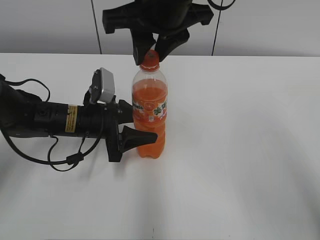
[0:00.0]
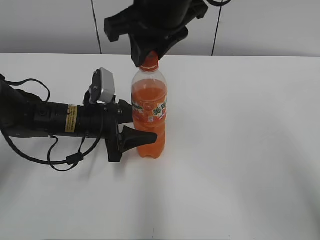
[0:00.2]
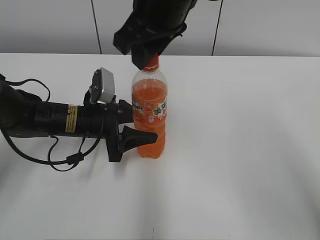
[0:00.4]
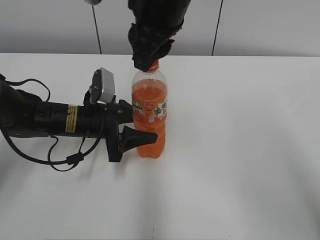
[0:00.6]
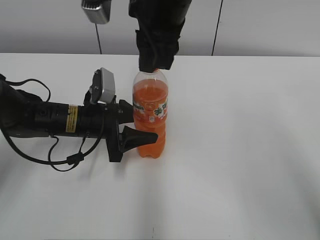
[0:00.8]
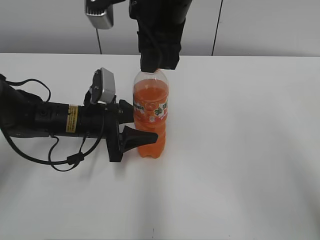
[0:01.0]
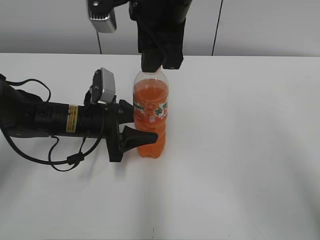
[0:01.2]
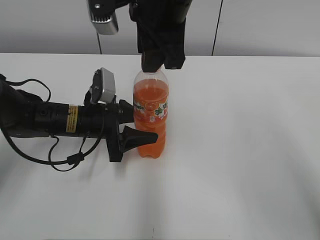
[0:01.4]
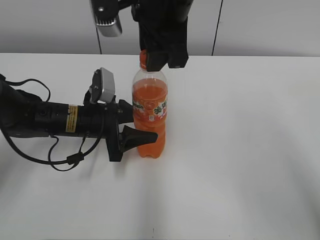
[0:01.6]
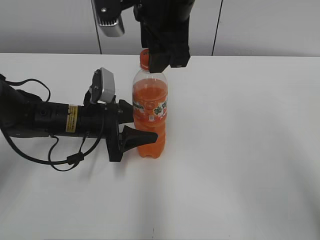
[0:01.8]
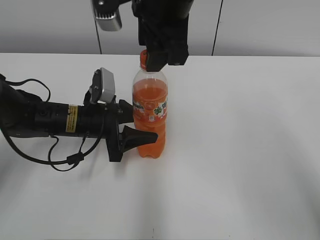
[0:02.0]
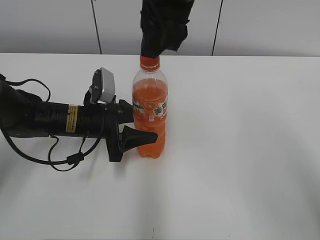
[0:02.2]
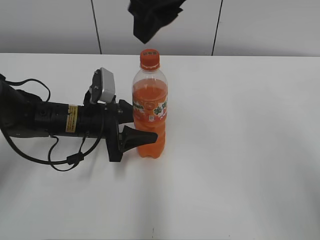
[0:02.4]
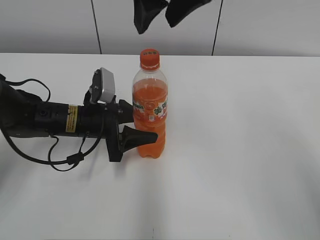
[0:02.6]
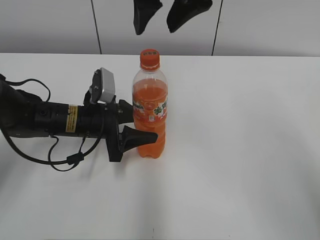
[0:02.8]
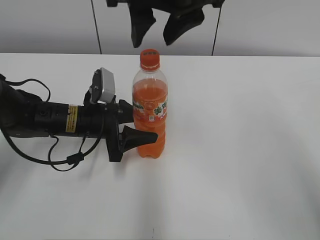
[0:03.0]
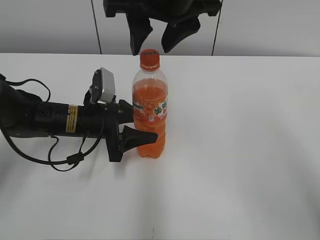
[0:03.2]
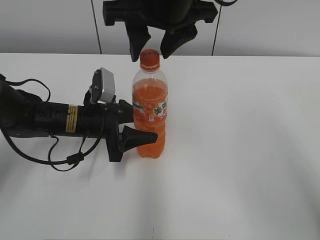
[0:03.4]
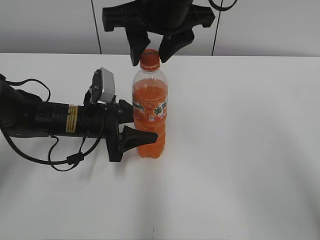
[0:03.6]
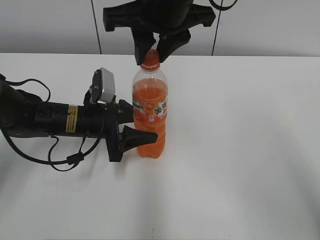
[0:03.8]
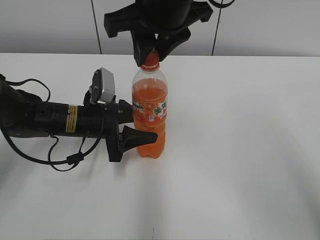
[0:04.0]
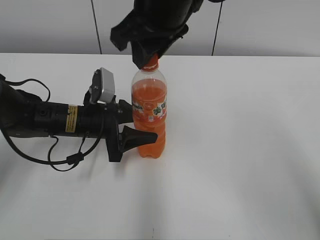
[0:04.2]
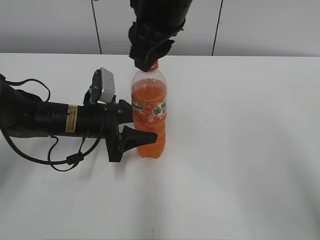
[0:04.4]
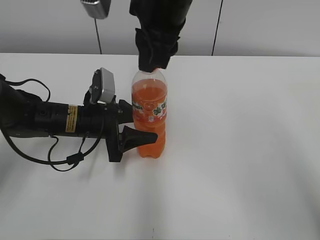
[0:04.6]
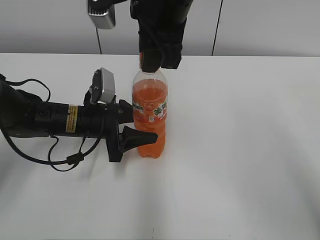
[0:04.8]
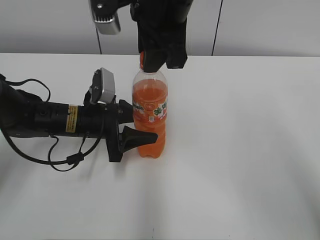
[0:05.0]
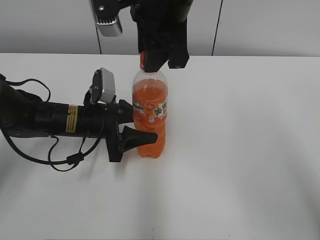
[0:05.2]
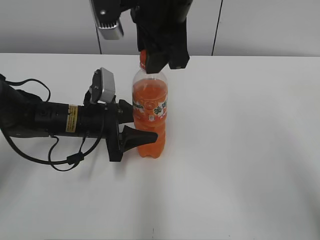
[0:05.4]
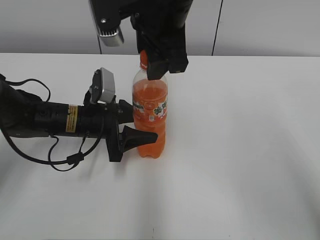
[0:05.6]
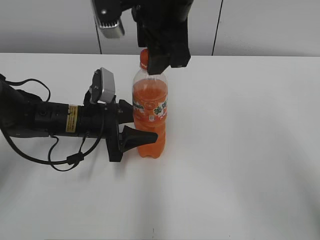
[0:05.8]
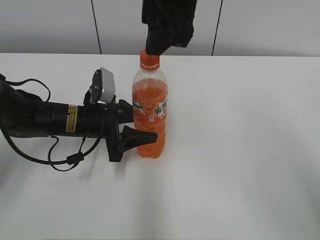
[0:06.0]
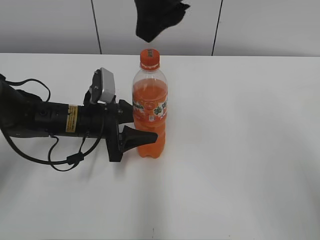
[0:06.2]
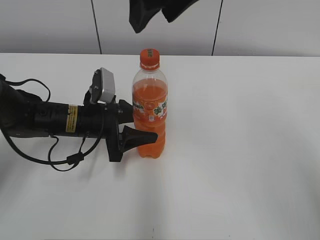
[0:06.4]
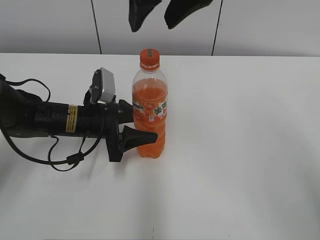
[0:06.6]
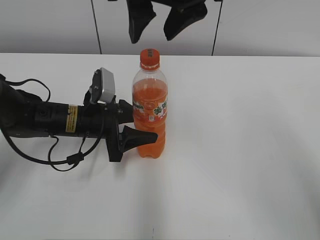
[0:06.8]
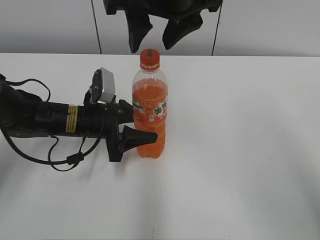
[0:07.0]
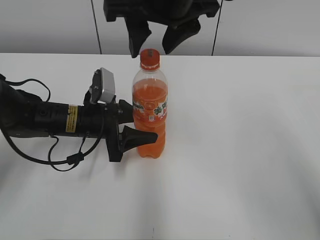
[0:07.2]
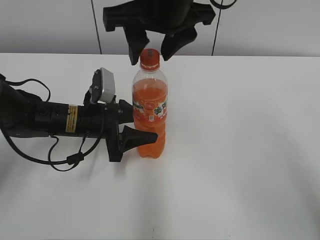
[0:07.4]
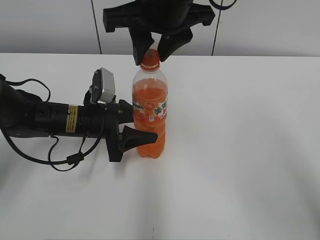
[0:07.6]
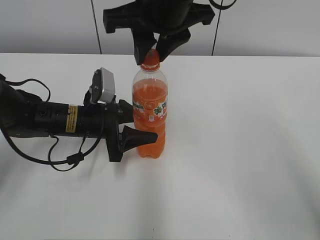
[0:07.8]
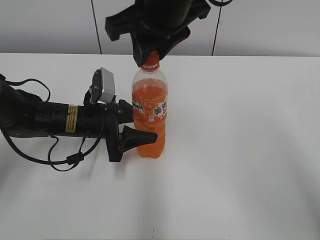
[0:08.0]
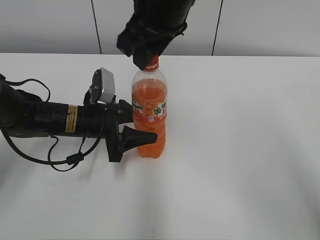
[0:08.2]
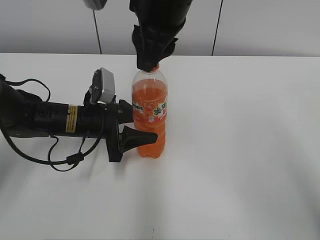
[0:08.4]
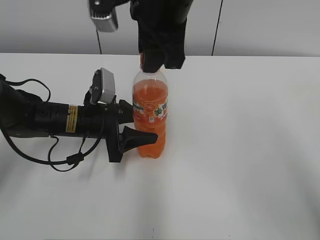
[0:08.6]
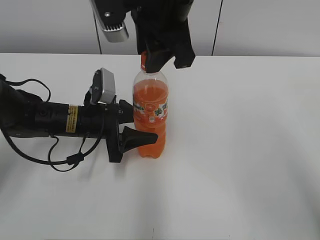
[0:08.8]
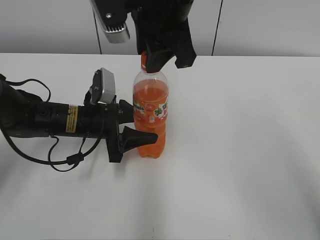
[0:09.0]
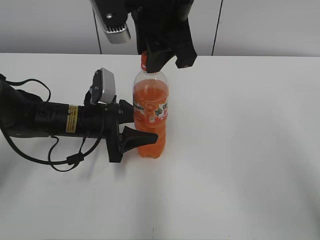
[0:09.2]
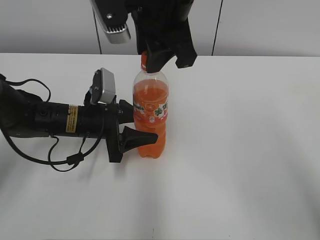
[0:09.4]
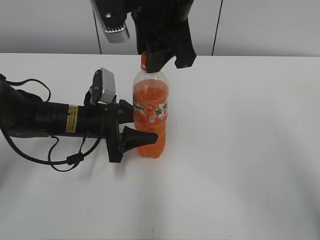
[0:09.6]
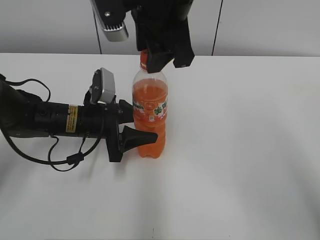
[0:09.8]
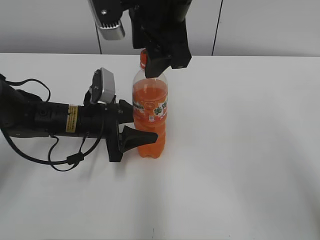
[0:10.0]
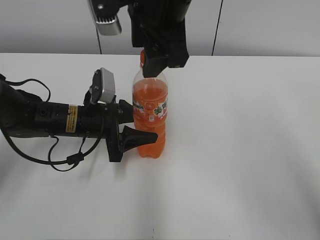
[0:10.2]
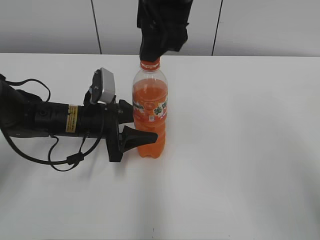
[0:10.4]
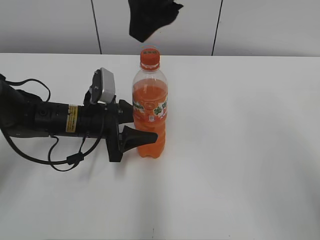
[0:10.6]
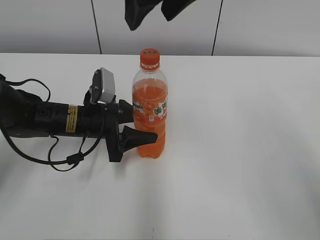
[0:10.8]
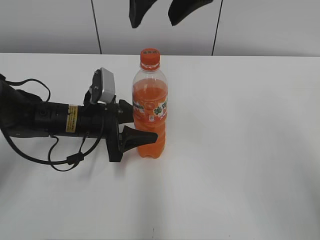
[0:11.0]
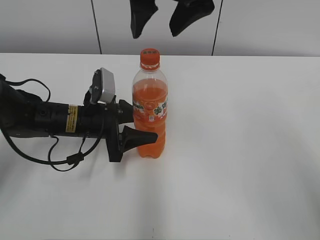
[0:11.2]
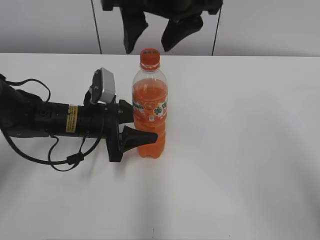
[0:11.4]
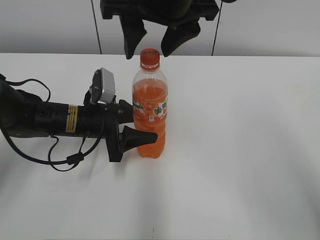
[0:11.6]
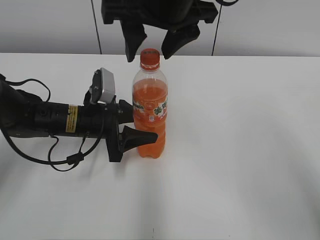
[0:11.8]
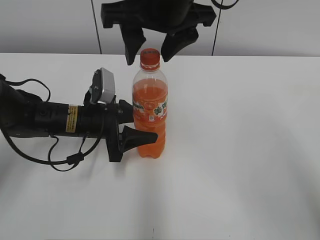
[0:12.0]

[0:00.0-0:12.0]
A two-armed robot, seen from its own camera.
0:03.0 to 0:04.4: The right gripper closes up.
0:04.4 to 0:06.0: The right gripper opens up.
0:06.0 to 0:07.6: The right gripper closes up.
0:09.0 to 0:10.4: The right gripper opens up.

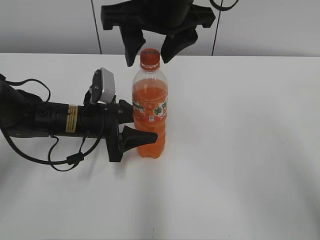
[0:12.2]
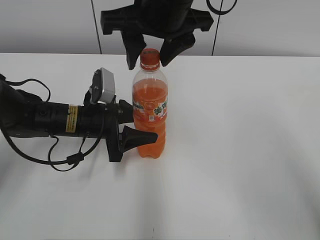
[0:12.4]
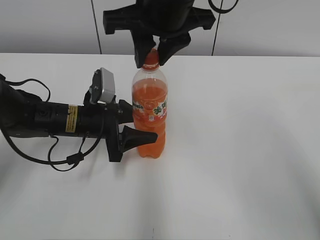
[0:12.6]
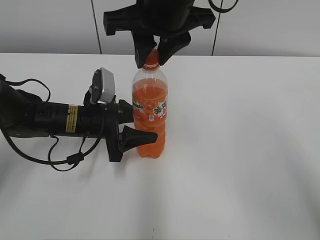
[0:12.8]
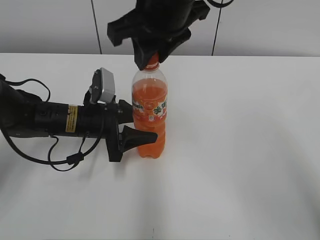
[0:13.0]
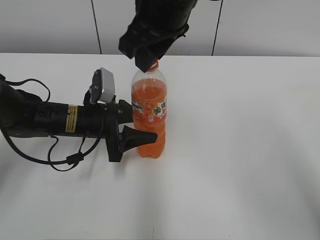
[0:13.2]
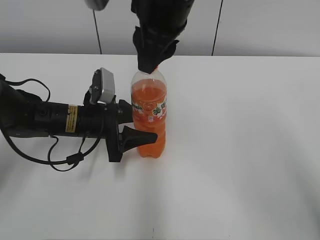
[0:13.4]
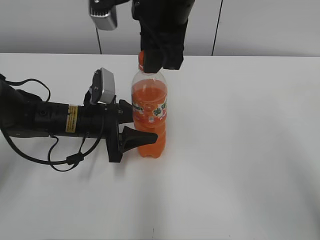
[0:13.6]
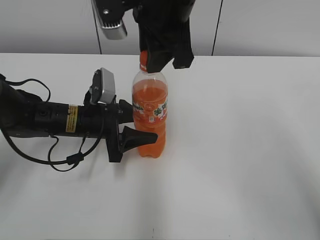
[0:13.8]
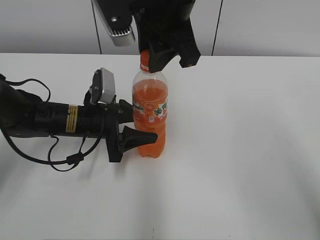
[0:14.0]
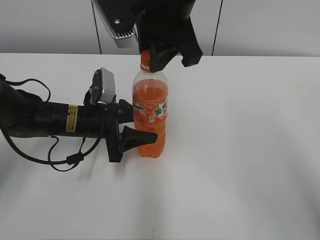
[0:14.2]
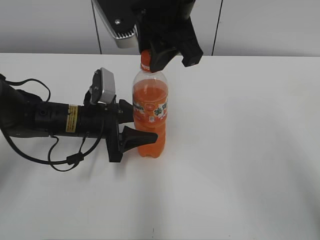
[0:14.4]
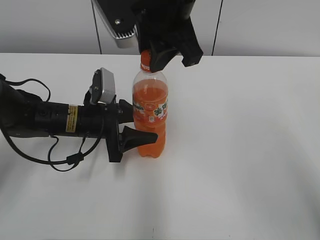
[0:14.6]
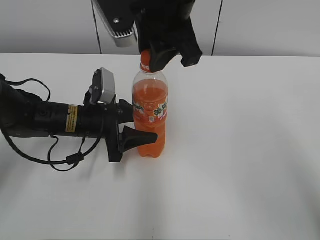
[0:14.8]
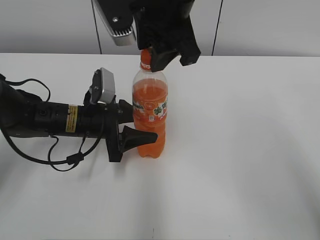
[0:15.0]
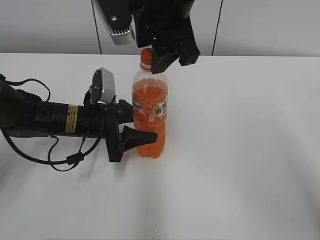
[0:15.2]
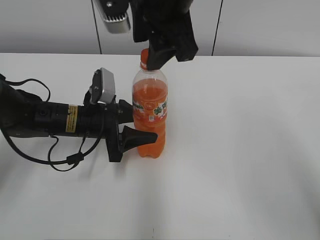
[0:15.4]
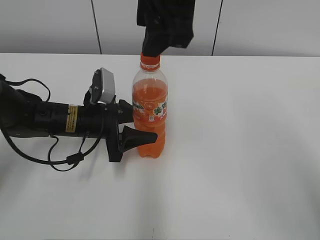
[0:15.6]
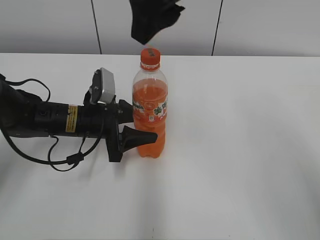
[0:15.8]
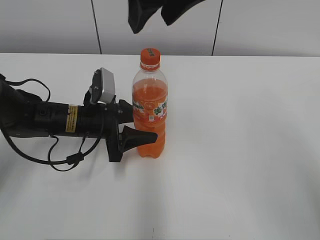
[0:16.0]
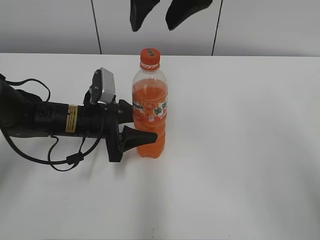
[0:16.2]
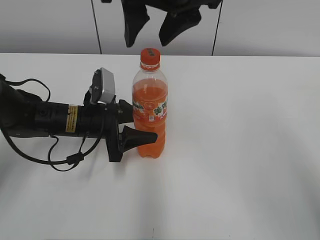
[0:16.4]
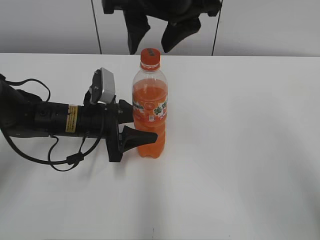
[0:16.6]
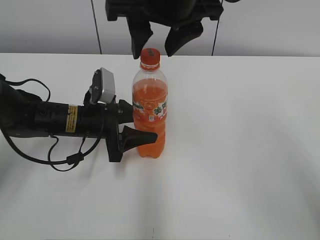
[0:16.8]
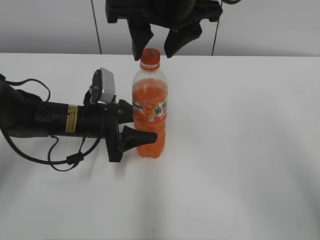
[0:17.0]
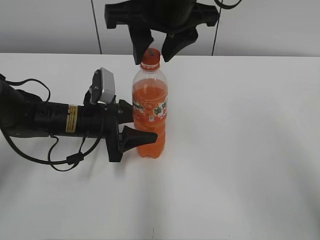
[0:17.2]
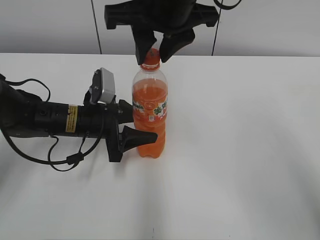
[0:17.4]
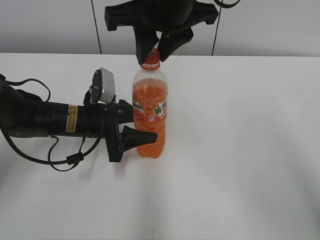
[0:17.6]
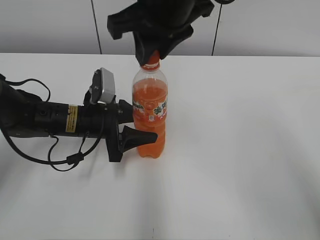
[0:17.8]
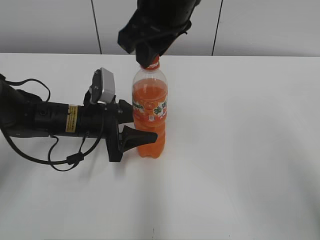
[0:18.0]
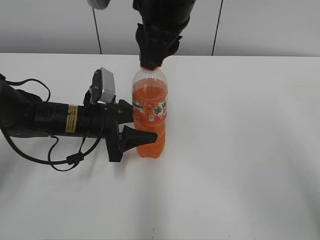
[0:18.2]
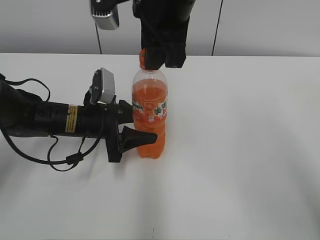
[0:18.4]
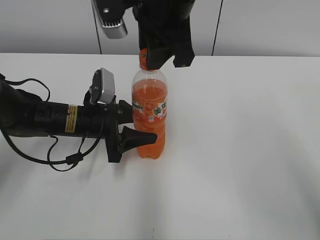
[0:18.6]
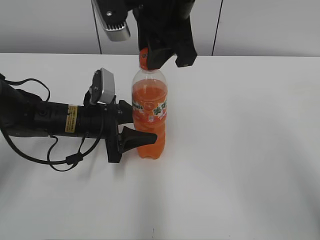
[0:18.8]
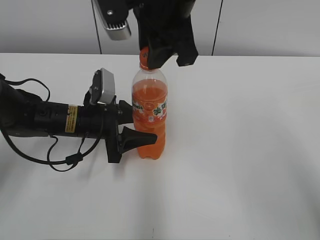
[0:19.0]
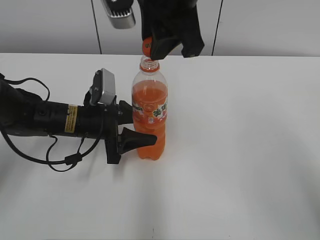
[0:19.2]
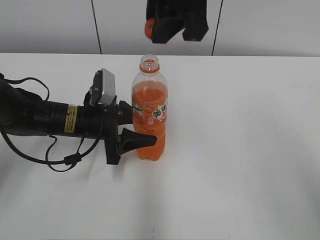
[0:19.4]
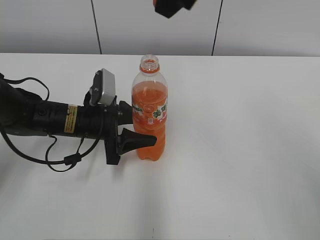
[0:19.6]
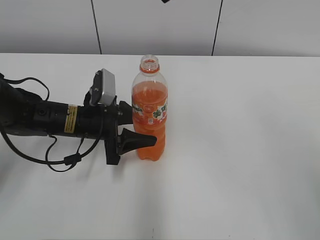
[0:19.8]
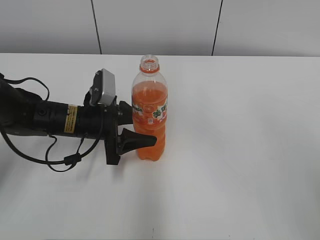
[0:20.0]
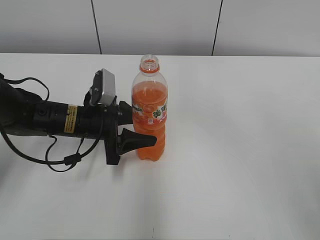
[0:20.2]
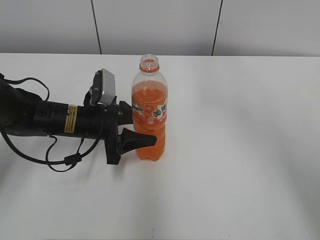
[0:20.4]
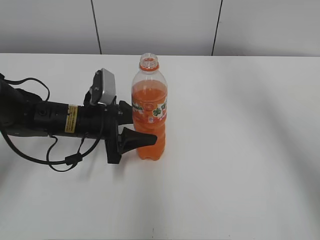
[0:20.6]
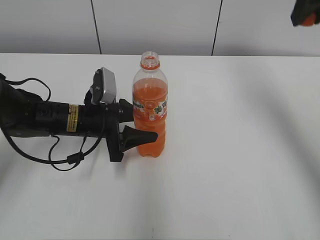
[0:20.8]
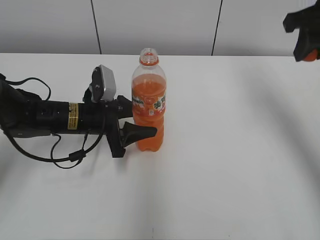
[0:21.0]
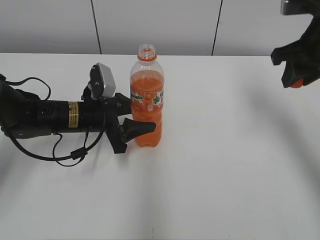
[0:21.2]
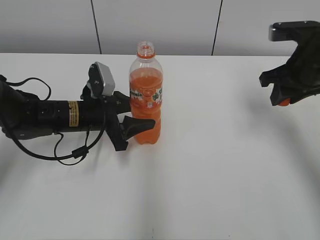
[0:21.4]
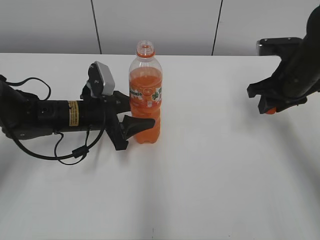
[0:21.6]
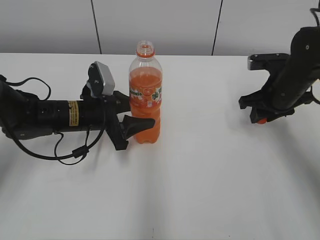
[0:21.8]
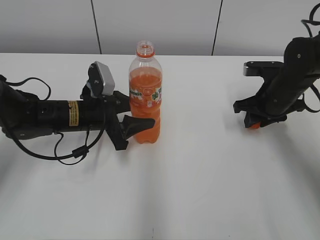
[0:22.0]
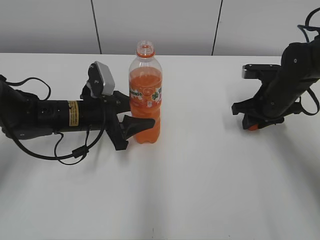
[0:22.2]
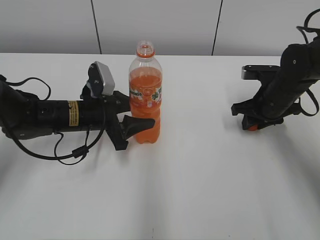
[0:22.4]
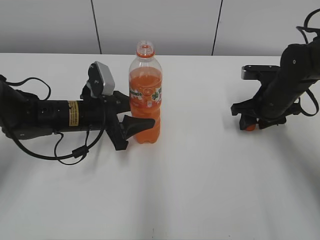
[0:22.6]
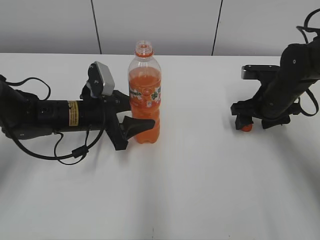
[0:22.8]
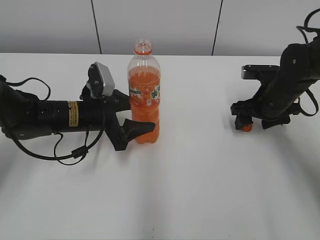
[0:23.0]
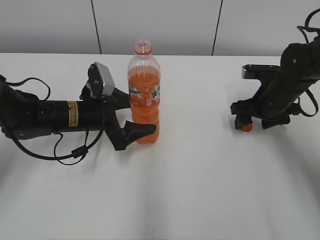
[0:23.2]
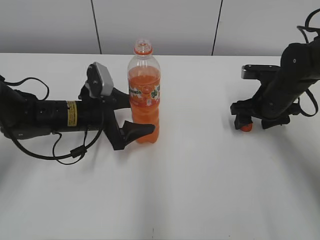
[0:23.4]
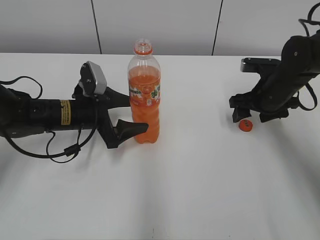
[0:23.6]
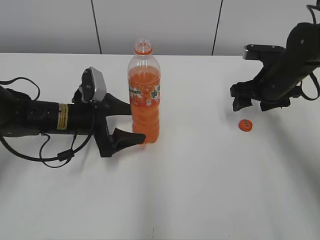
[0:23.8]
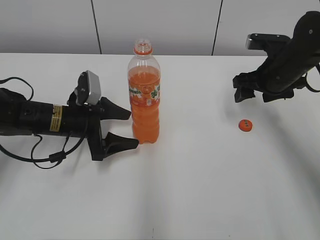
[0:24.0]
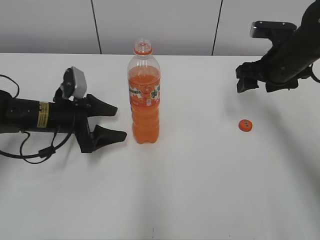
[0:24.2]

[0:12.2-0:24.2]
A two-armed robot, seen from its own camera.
Step, 0:19.2 to 0:21.2: Move the Mirinda from right to left.
0:12.2 to 0:13.8: The right gripper closes up.
0:13.8 to 0:15.2: The right gripper opens.
0:16.6 to 0:18.2: The right gripper closes its fingers.
0:18.2 to 0:19.8: The right gripper goes approximately 10 cm upward.
0:19.8 to 0:21.2: The right gripper travels to the right and downward by some 25 cm.
0:21.2 to 0:22.6: The right gripper is displaced downward by about 15 cm, and opens.
0:22.6 to 0:24.2: The left gripper heads to the left, covering roughly 5 cm, and opens, while the right gripper heads upward, covering some 10 cm, and opens its fingers.
